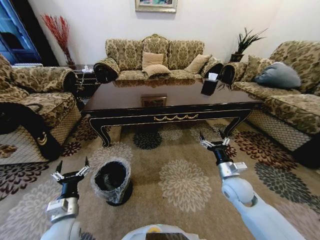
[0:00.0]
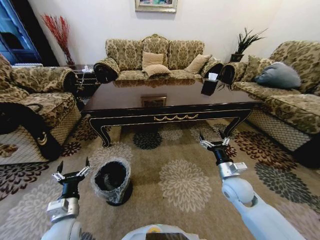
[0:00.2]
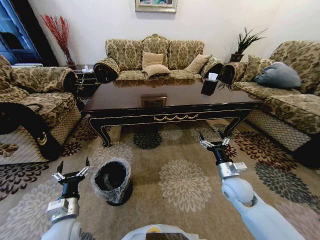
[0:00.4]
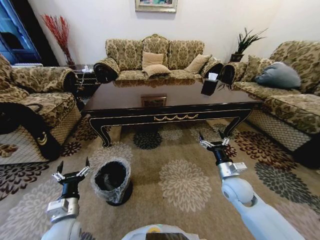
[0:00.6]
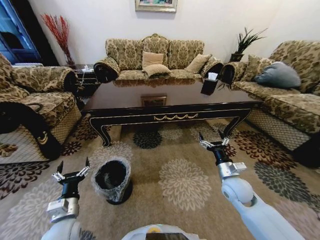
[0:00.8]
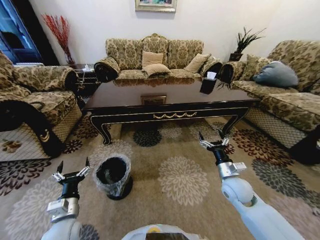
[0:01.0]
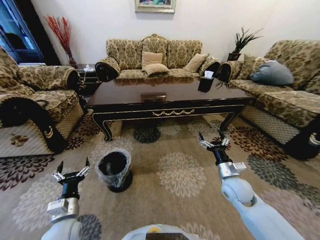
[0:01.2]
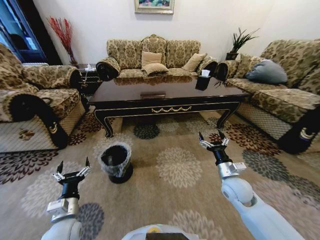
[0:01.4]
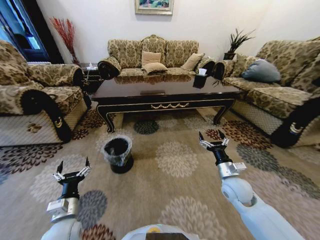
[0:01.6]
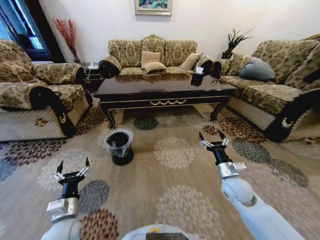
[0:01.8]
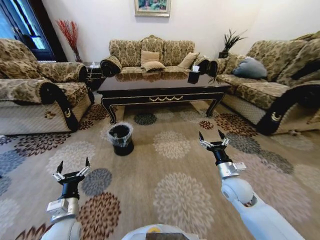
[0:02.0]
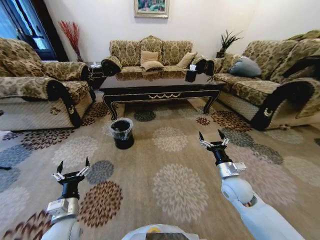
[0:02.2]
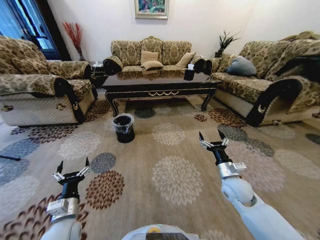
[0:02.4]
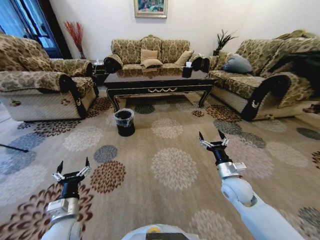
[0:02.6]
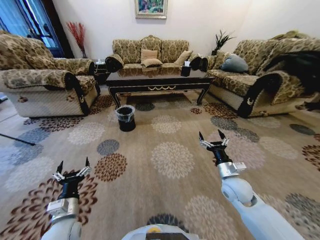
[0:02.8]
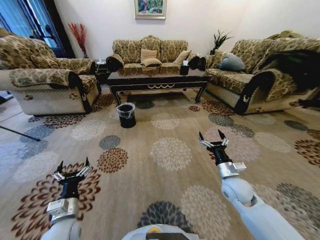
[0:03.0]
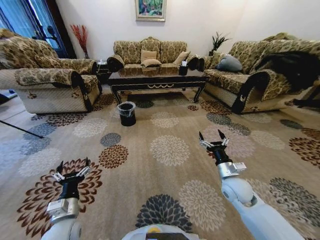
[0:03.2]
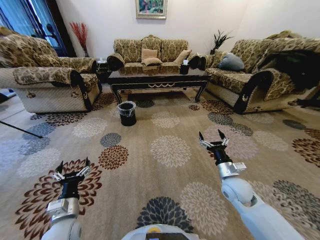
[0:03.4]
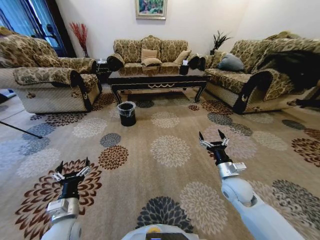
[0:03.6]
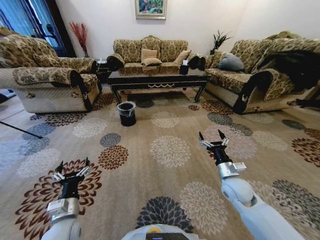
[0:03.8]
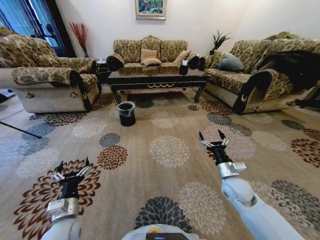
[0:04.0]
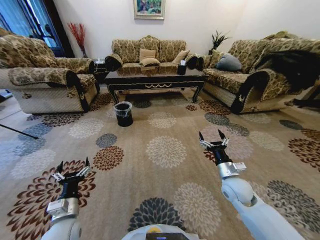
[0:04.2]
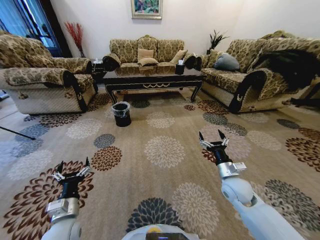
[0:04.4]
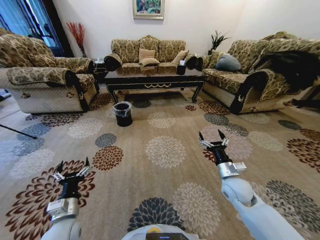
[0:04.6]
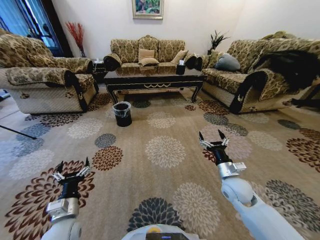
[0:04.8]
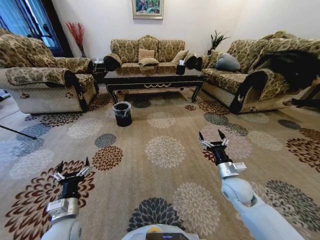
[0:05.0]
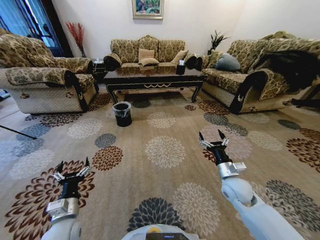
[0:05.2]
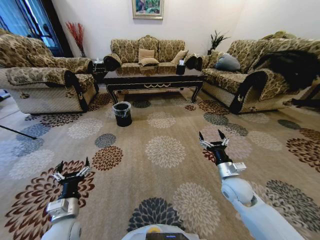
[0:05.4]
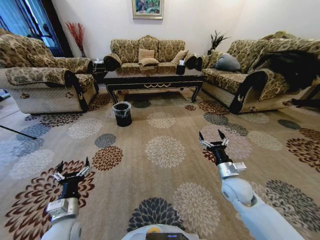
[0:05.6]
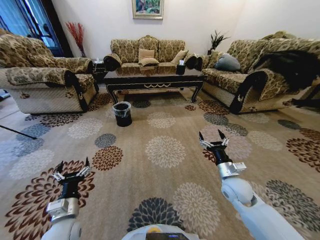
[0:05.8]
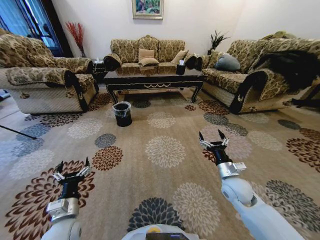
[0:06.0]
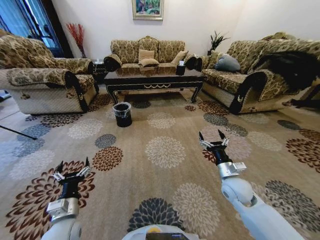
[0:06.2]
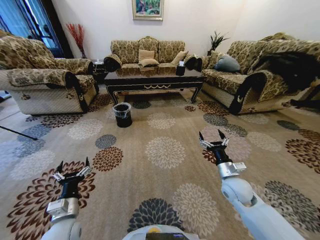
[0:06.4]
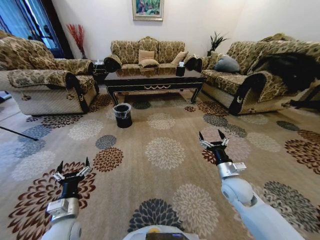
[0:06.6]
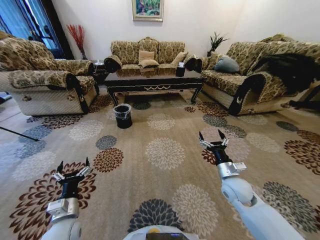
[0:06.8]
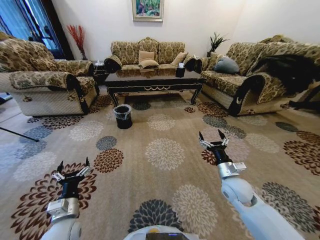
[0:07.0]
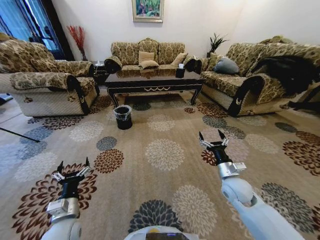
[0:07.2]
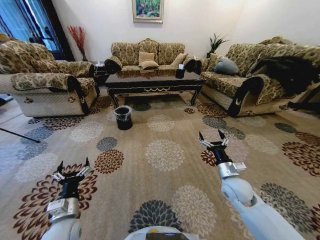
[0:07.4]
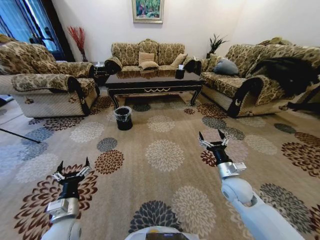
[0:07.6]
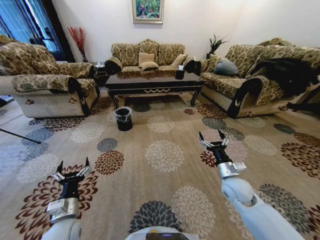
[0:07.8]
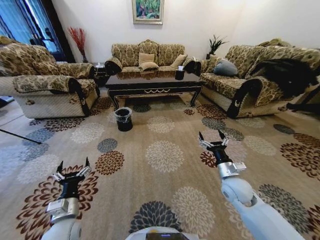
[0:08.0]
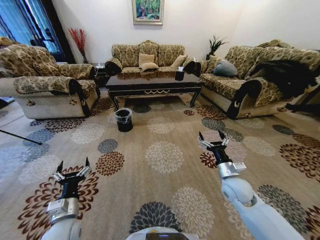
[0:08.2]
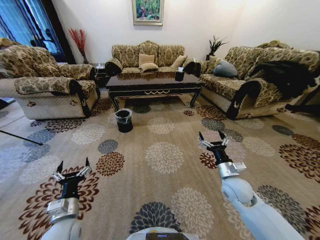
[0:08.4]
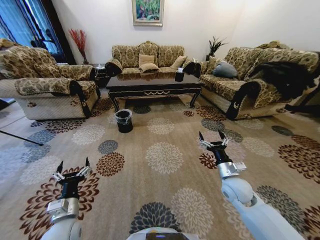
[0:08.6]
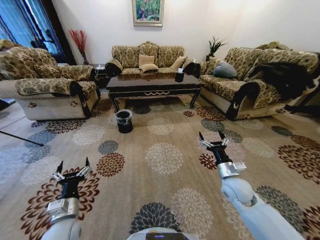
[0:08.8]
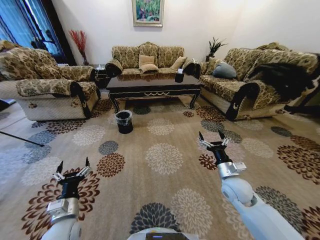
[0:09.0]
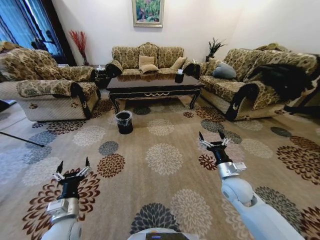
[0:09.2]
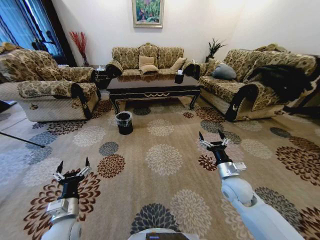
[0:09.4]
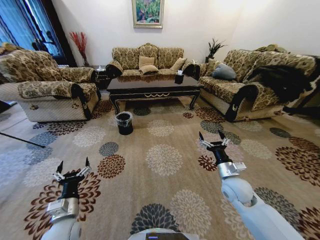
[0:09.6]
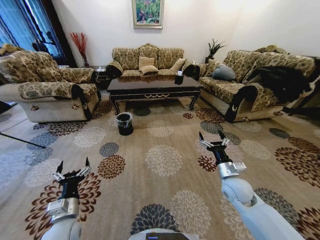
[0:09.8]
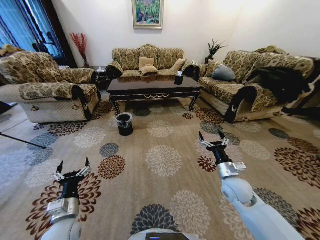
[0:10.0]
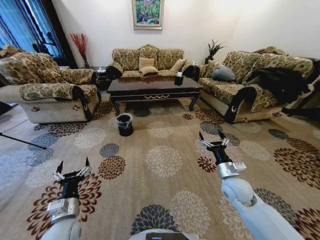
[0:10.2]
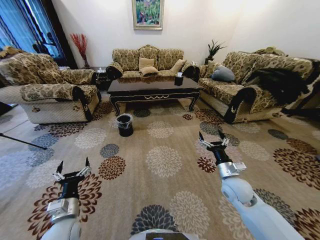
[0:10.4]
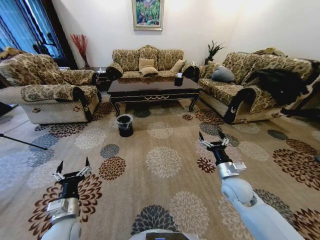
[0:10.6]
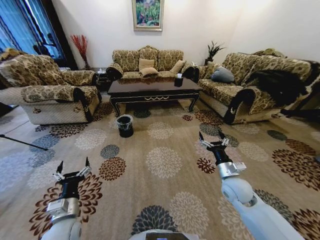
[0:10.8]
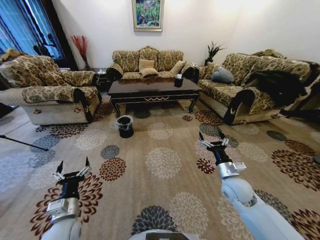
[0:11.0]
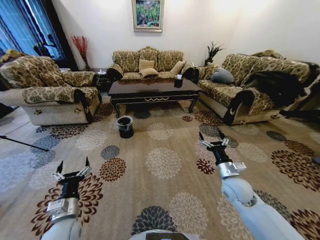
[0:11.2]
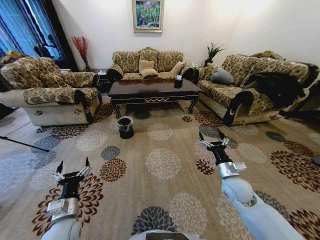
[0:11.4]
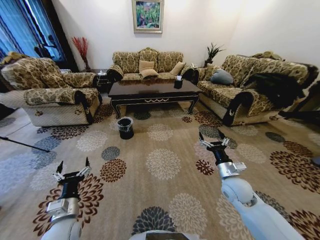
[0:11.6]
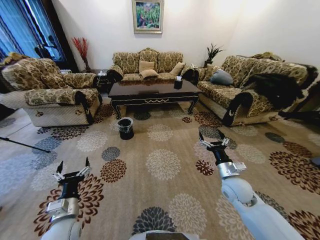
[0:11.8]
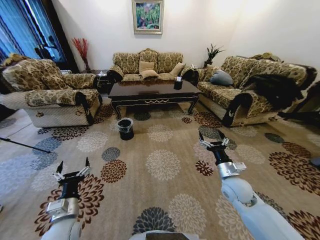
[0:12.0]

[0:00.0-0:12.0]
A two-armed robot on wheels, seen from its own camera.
Task of the whole recording: Move to the front of the table and pick up the trash from the floor, then place it into the trash bin.
0:04.4 to 0:06.0: The two grippers keep their place.

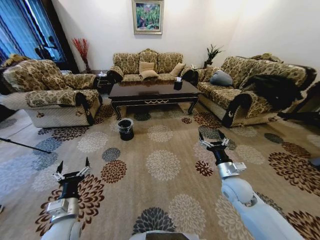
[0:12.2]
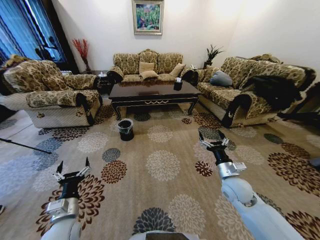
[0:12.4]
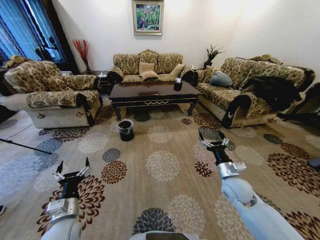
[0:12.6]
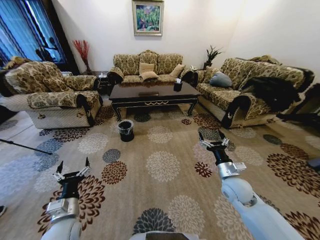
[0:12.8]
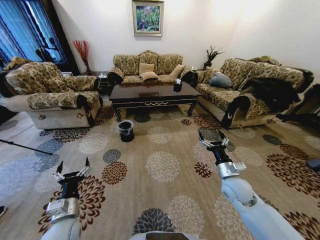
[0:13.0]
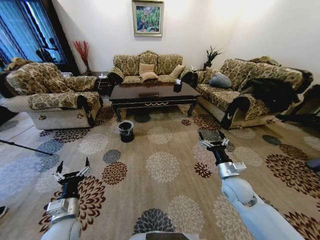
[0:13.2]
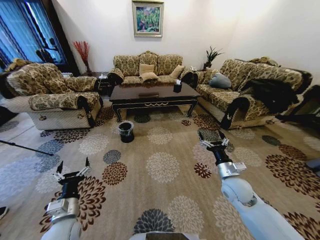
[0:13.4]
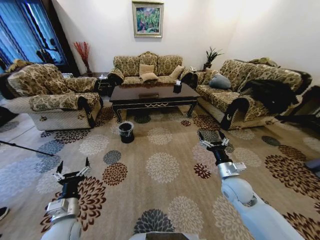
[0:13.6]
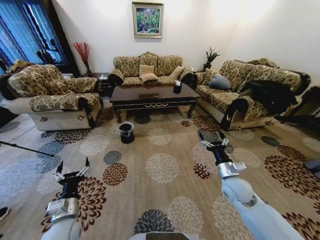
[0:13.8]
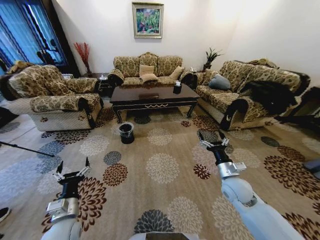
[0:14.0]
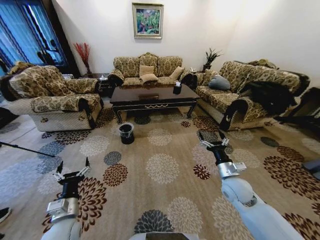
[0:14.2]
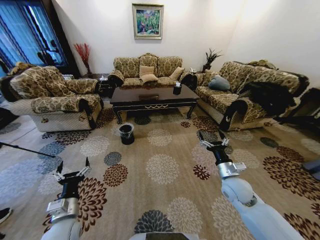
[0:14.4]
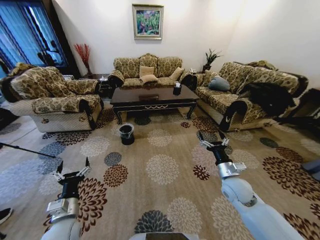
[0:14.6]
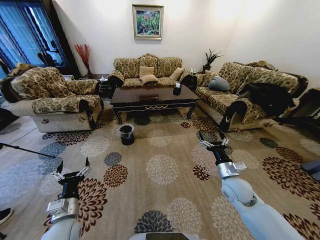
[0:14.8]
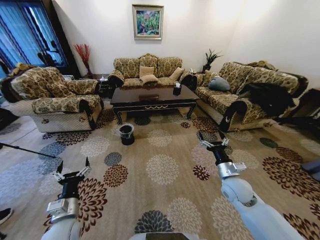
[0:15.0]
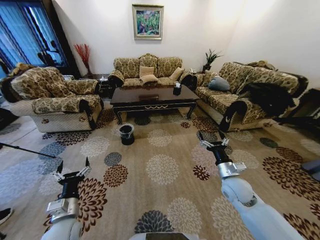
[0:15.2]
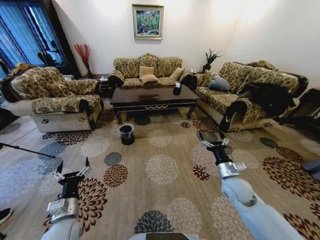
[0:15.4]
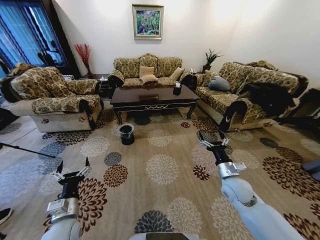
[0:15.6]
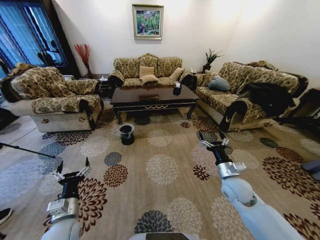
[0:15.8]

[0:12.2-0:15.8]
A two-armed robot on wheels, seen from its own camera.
Task of the whole recording: Move to the front of the table and pick up the trash from the floor, then place it into the trash bin.
0:14.0 to 0:15.8: The two grippers keep their place.
